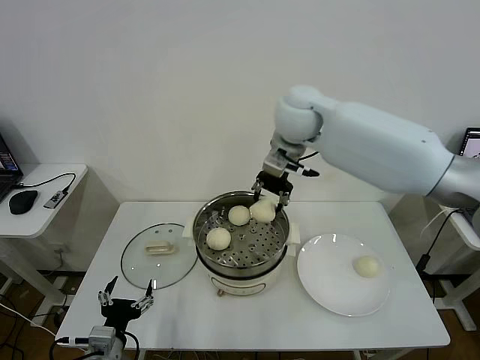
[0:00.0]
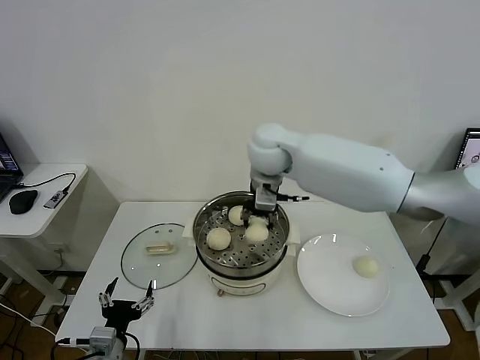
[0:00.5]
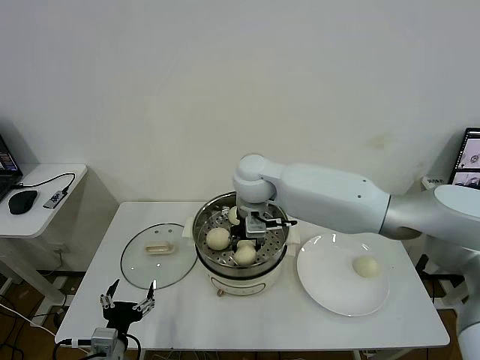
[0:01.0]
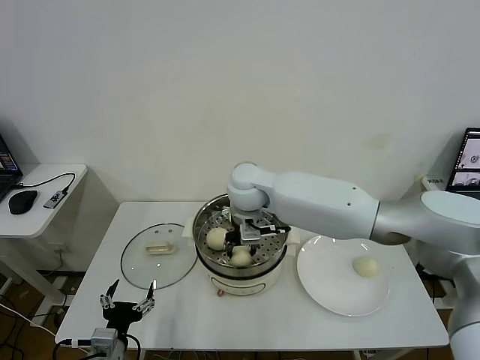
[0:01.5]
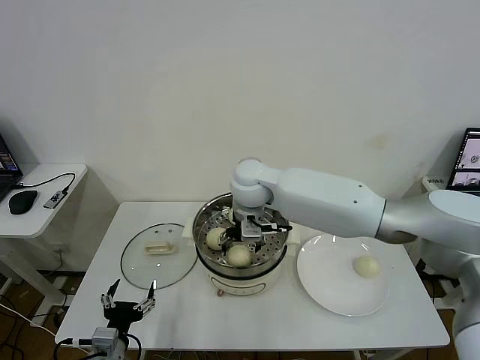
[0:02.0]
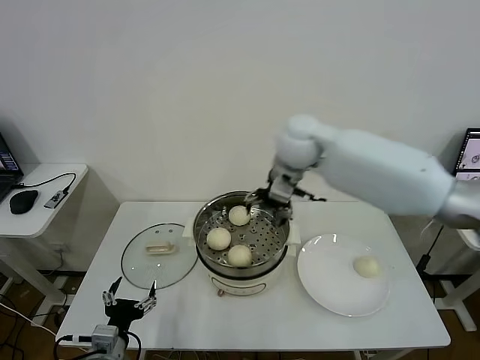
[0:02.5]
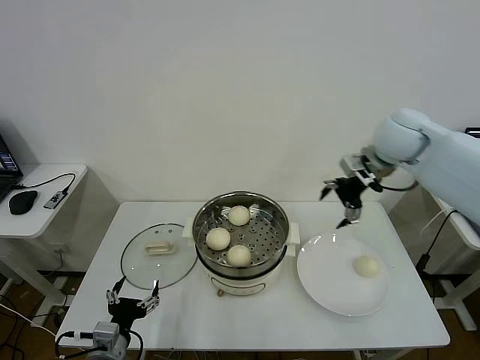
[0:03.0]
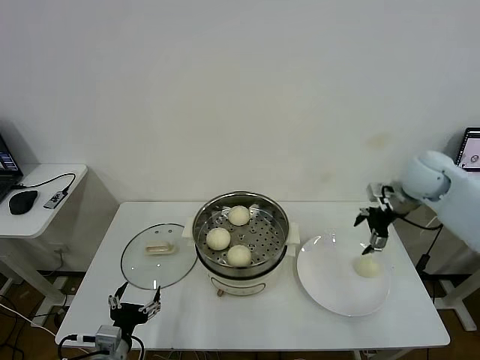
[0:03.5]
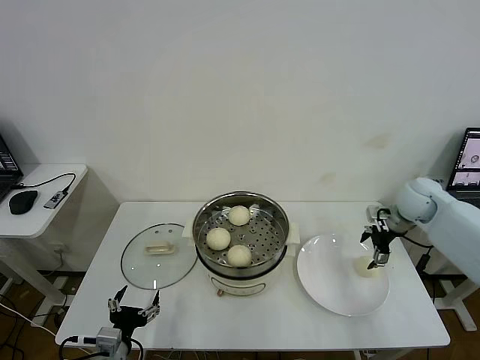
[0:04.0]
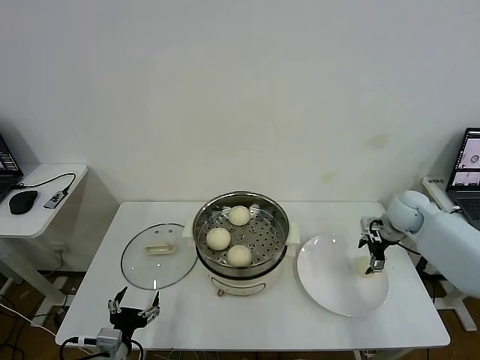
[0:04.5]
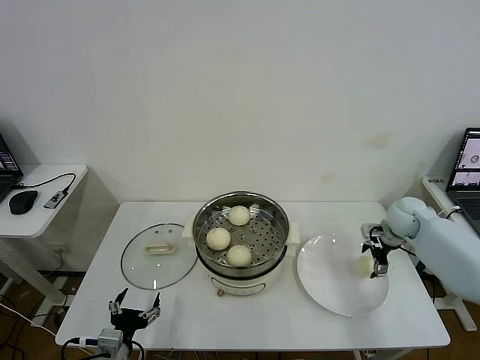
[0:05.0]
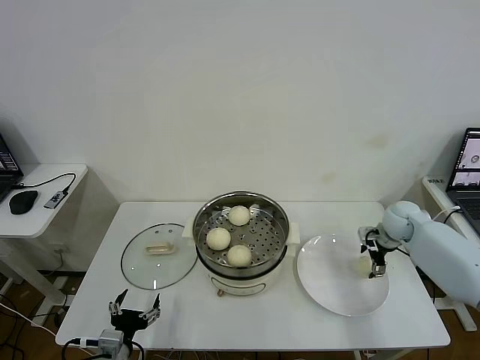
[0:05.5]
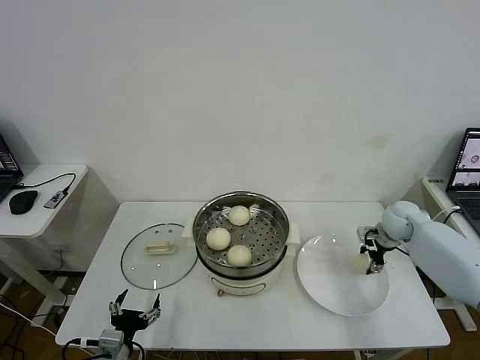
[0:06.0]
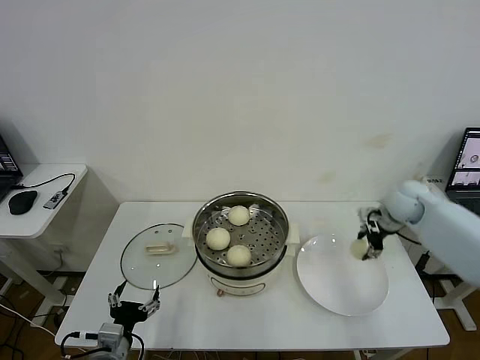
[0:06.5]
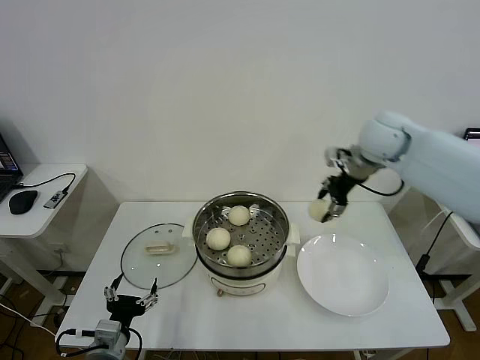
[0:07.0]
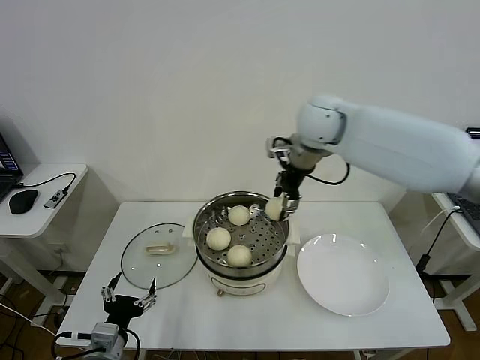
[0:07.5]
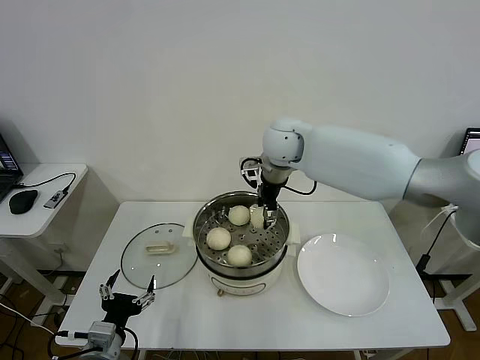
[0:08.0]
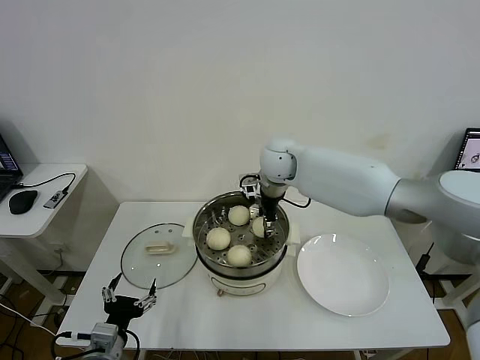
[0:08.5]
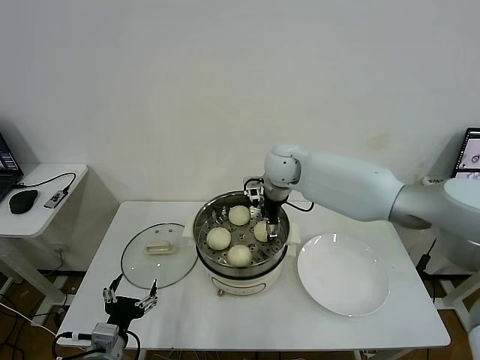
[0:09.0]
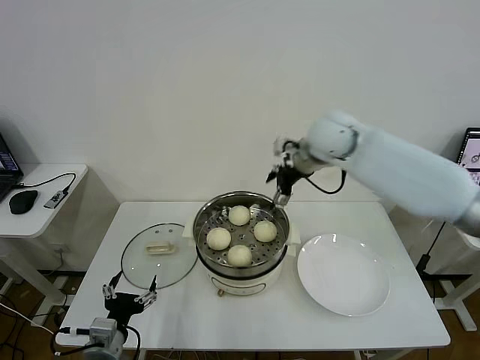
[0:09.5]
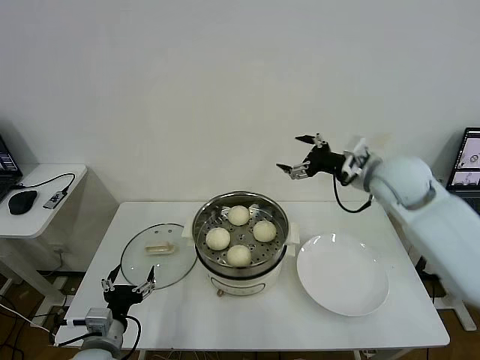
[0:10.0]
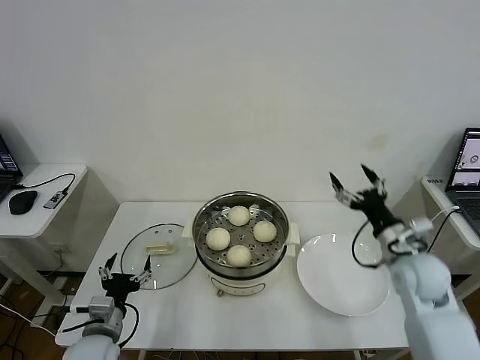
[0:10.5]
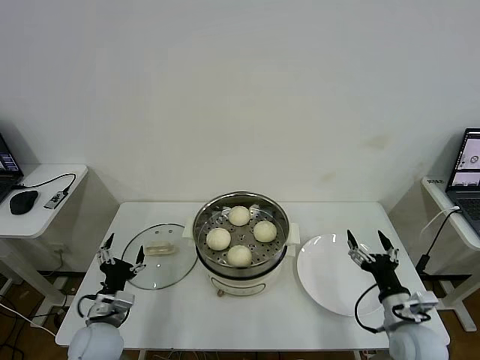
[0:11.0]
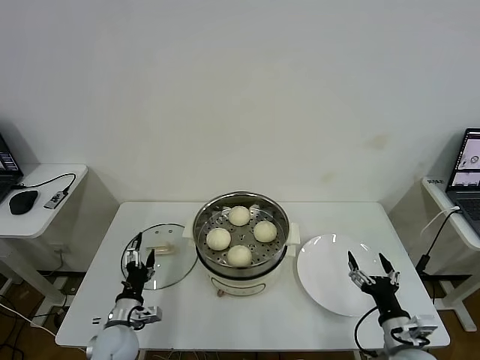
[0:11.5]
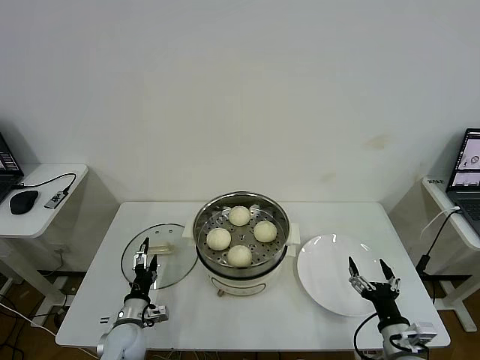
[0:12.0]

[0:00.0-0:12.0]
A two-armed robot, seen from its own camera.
Task of the whole recording: take steamed baozi put them in steamer then cover it.
Step, 0.0 to 2.0 s: Place the baozi on the steamer with right gripper.
Step, 2.5 to 6.0 s: Grasp the baozi in the plate with right gripper.
Step, 6.5 to 9.0 s: Place the baozi on the steamer with right gripper.
0.0 to 2.0 s: The right gripper goes about 15 cm downward and to the left, and opens.
2.0 to 4.0 s: The right gripper heads to the right, covering approximately 40 cm.
4.0 to 6.0 s: The right gripper is displaced downward by some 10 cm, and closes its fingers.
6.0 to 8.0 s: The right gripper travels to the left and upward by about 40 cm.
8.0 to 10.0 s: The right gripper goes approximately 25 cm to the right and backward, and opens its fingers.
10.0 to 12.0 s: The left gripper moves downward and forward, about 15 cm. Meanwhile the right gripper is displaced downward and backward by some 40 cm.

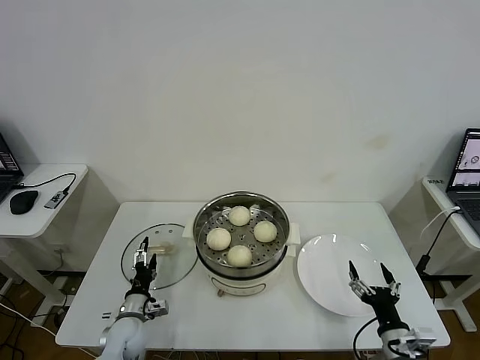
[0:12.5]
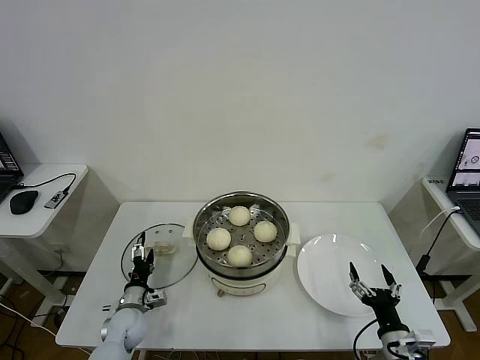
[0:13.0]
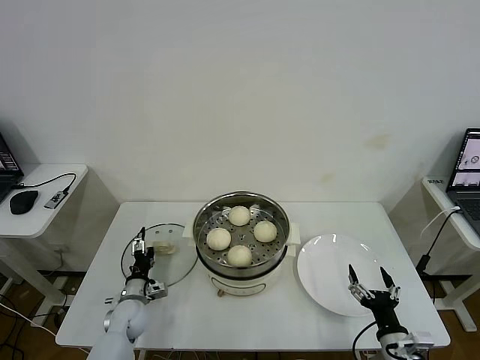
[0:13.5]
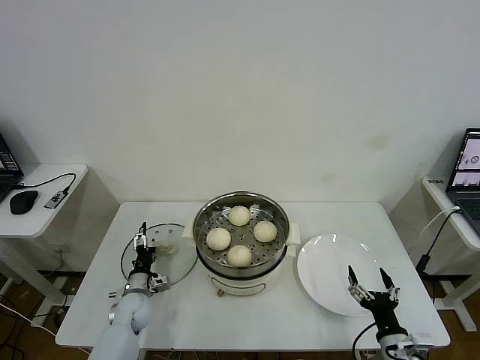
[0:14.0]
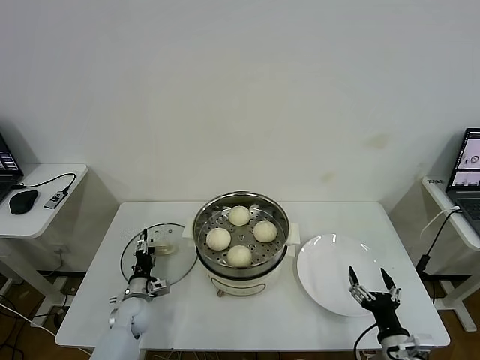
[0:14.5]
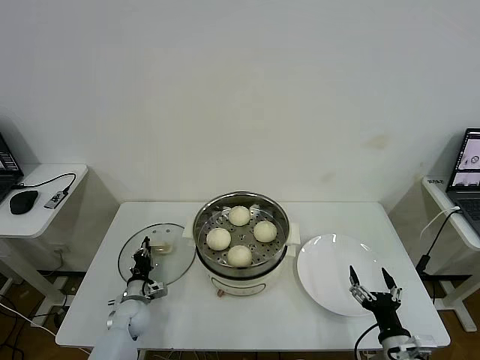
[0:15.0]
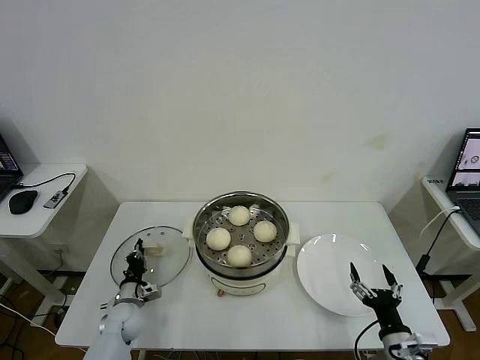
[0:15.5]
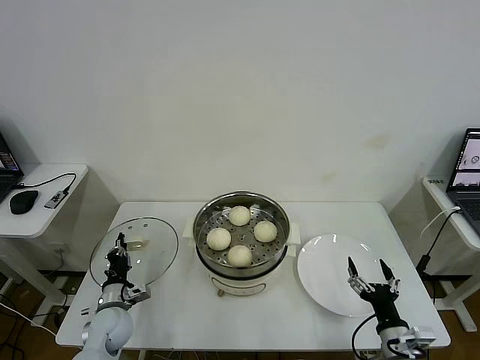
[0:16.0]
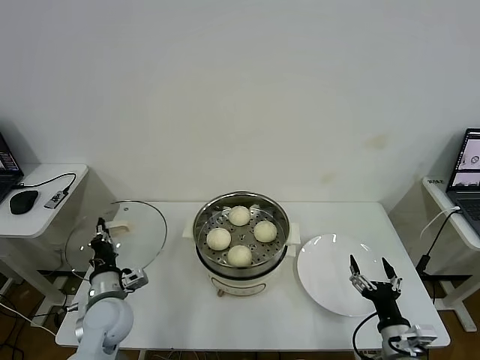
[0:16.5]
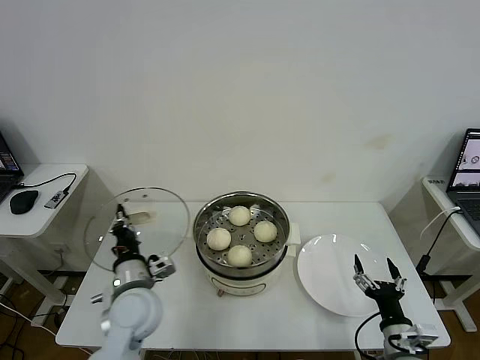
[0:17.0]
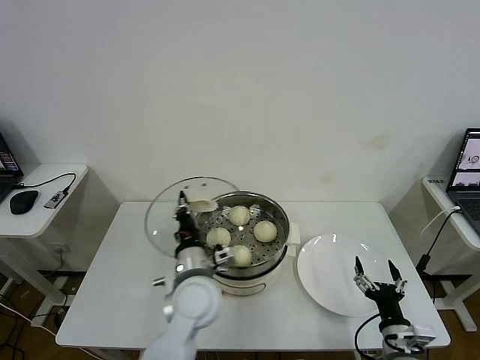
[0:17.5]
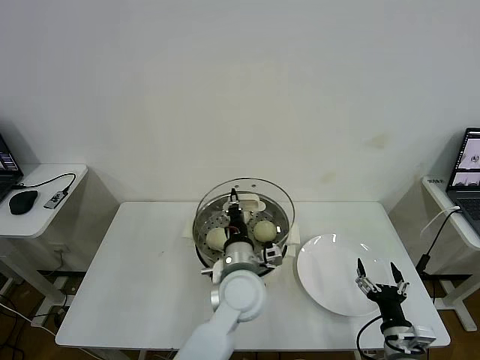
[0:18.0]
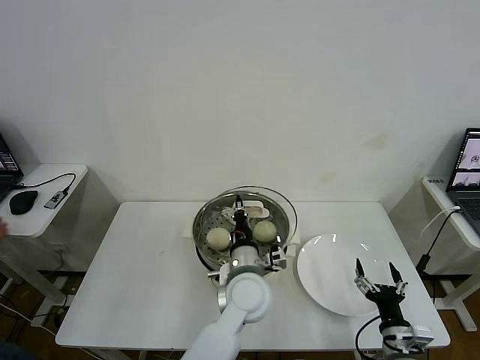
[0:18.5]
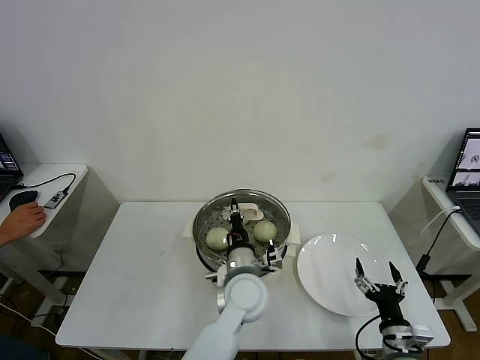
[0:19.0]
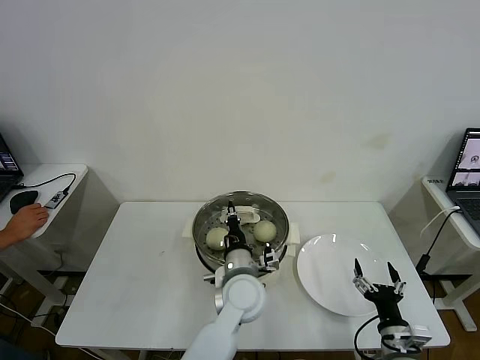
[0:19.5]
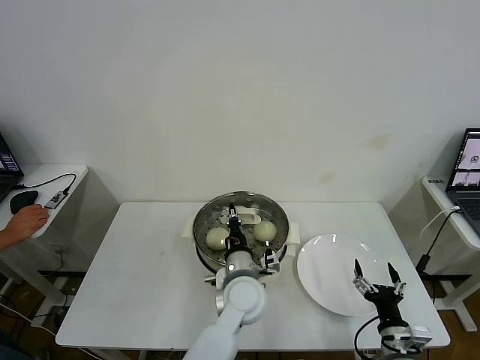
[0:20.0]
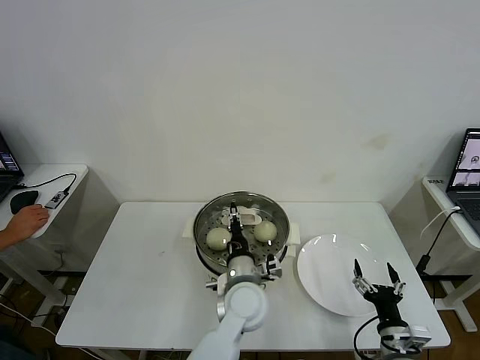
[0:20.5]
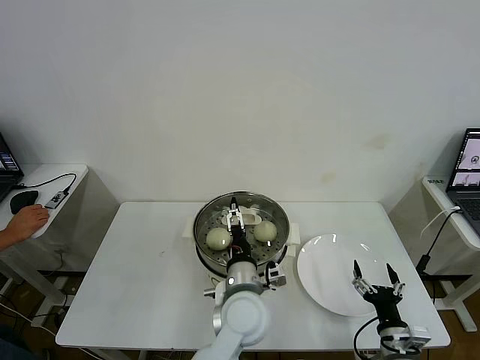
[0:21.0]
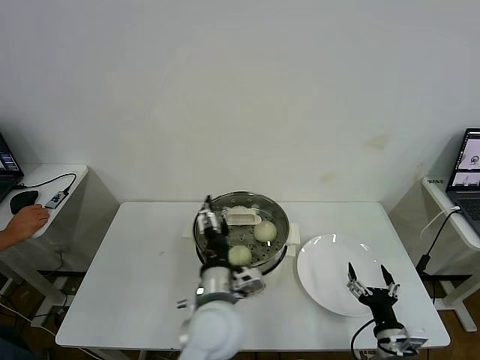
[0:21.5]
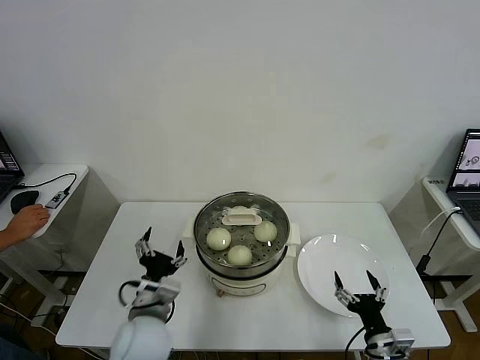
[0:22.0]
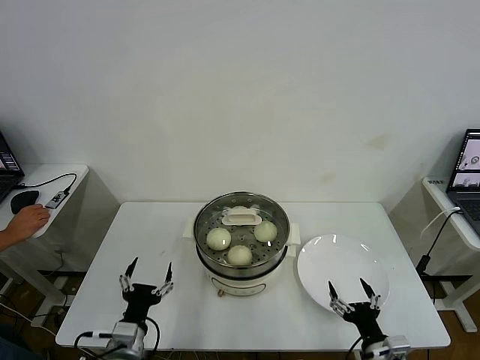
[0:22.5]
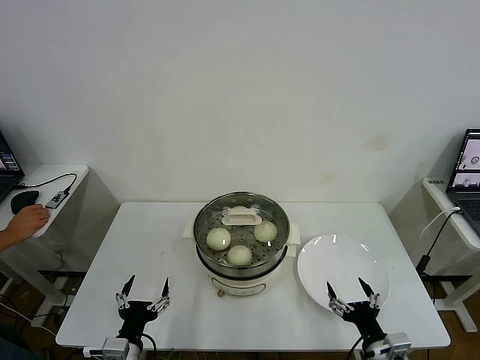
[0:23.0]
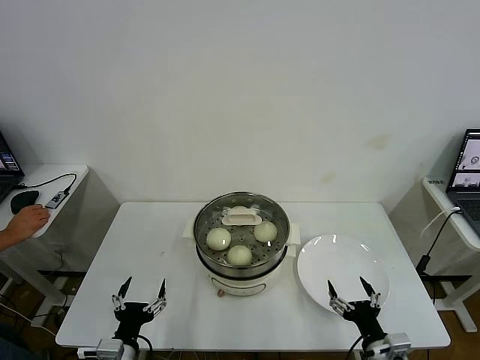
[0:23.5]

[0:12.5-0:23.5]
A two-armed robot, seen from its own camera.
Task of the whole recording: take steamed baozi put them in steamer then cover it.
Step, 12.5 to 15.5 s: Grasp the pot lid with left gripper.
Step, 16.0 to 21.0 s: Place the pot lid on the steamer with left gripper.
12.5 to 14.5 s: The left gripper is displaced forward by approximately 5 cm.
14.5 to 16.0 s: The left gripper shifts roughly 10 cm upward and backward, and closes its fingers.
16.0 to 18.0 s: The left gripper moves to the right and upward, roughly 35 cm.
18.0 to 20.0 s: The grippers stay close to where they were, moving slightly.
20.0 to 21.5 s: The left gripper travels backward and upward by about 10 cm, and opens.
21.5 to 23.5 s: The left gripper goes some 30 cm to the left, downward and backward.

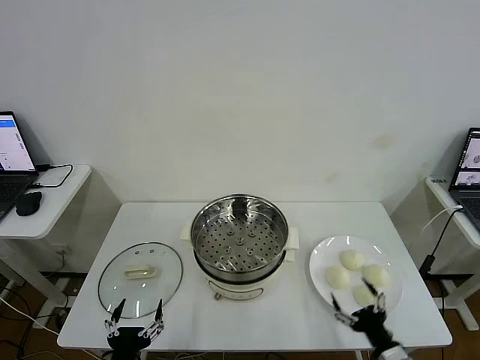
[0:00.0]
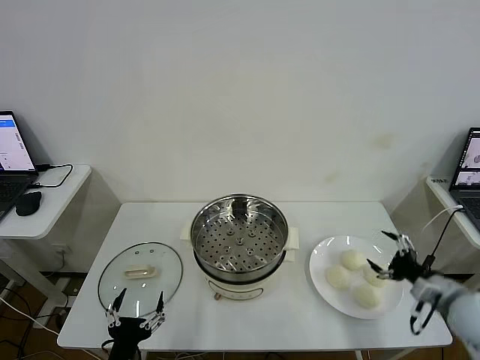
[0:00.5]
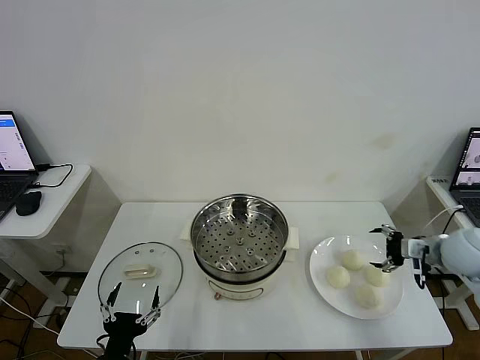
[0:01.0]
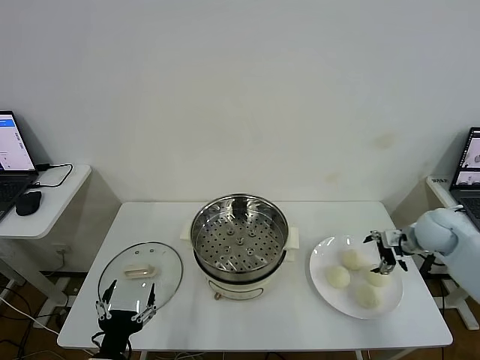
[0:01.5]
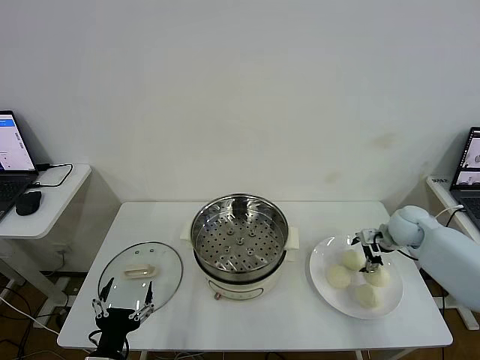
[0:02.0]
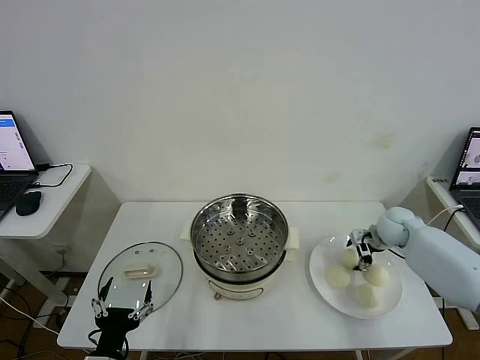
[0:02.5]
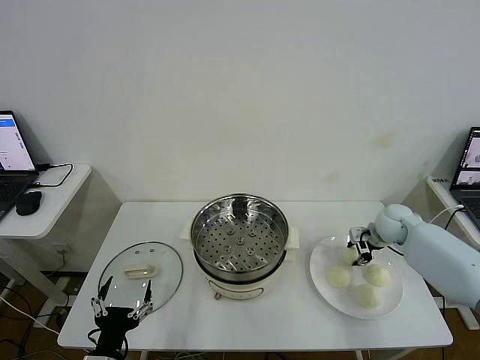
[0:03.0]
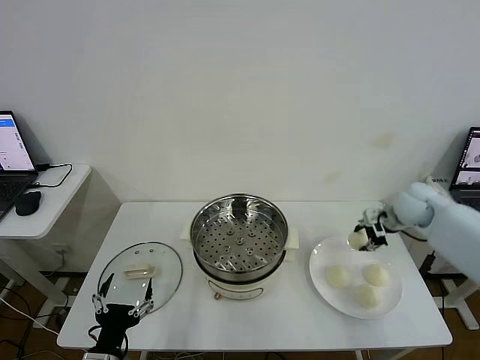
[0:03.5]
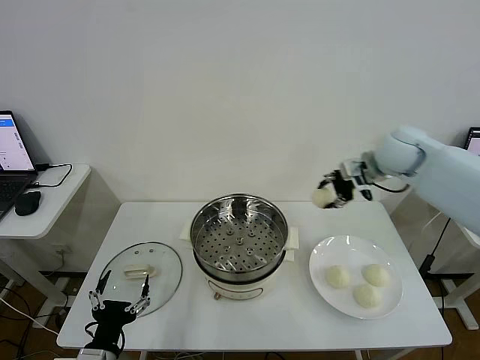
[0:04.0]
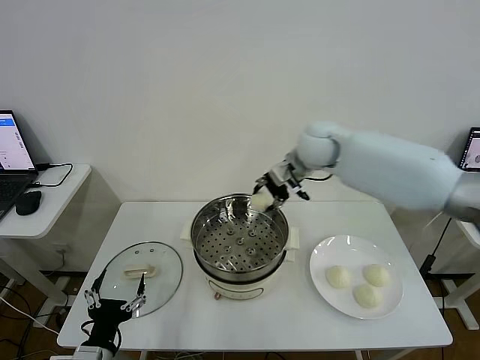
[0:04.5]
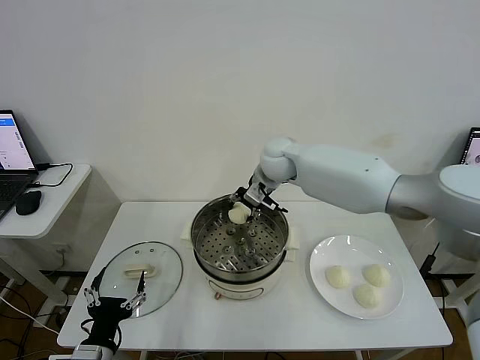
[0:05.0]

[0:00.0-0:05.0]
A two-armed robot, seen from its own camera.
Task of the whole recording: take steamed baozi put them in steamer then cover it.
Step, 0.0 to 2.5 s: Grasp the baozi in the plate with right gripper.
2.5 to 5.0 s: The right gripper moves to the left and upward, some 35 cm, and closes.
